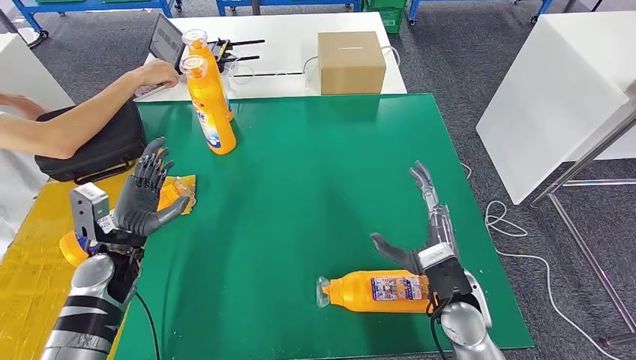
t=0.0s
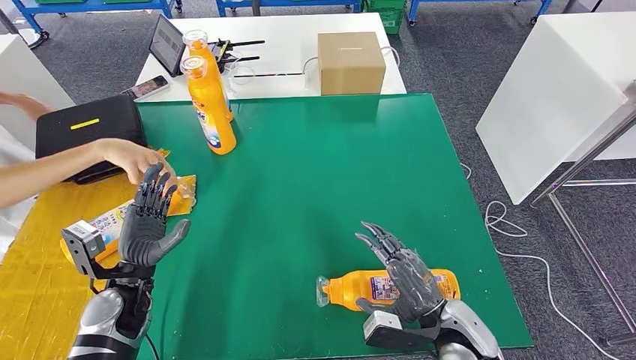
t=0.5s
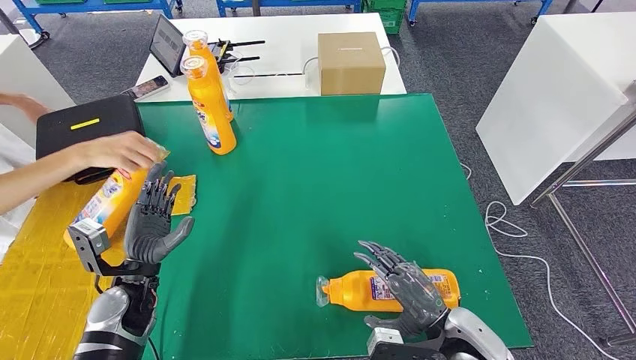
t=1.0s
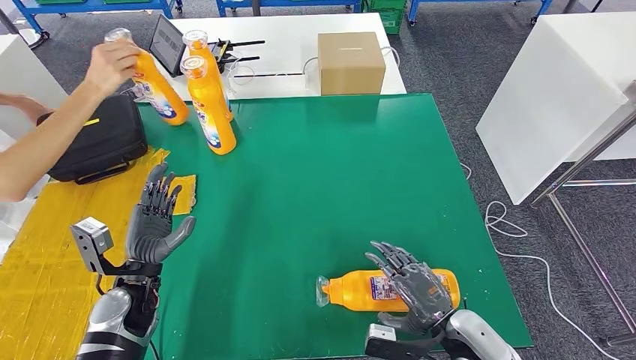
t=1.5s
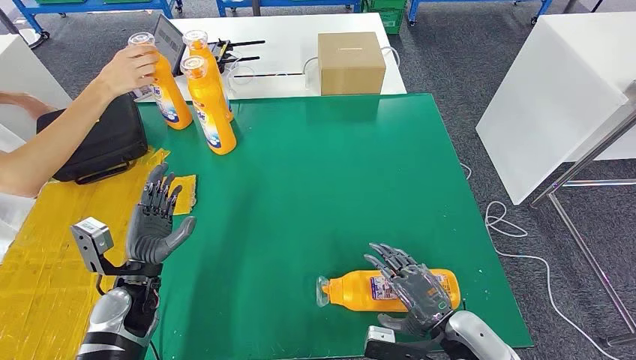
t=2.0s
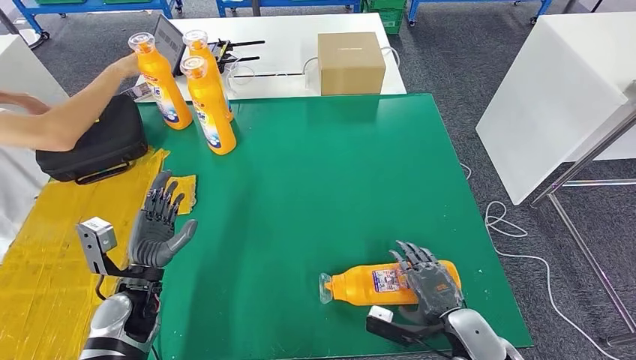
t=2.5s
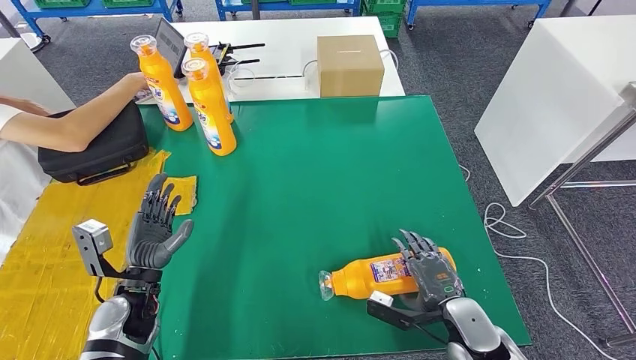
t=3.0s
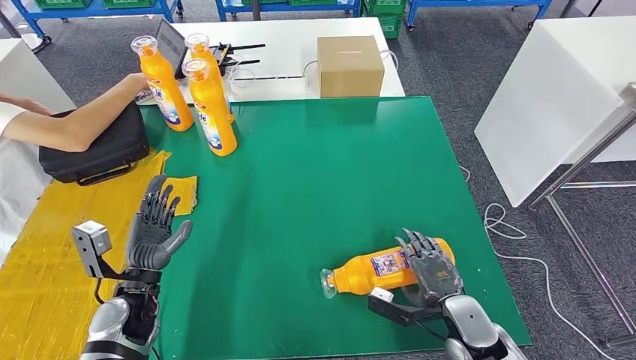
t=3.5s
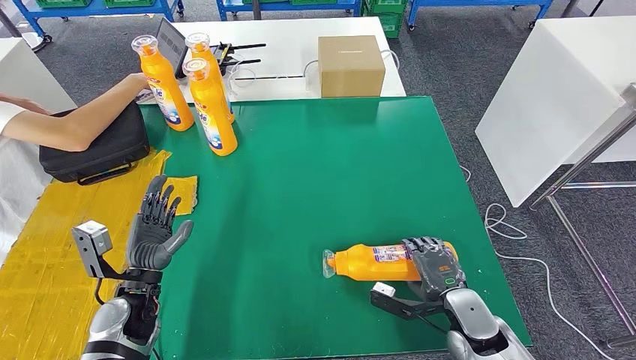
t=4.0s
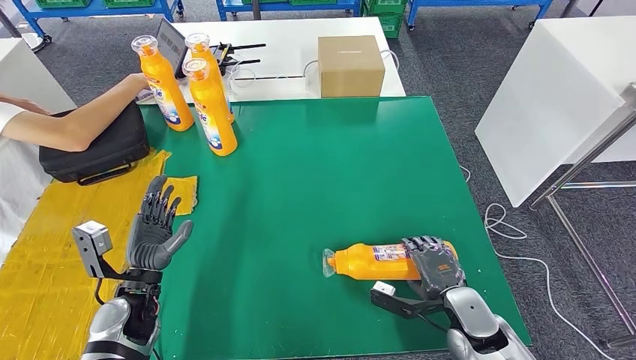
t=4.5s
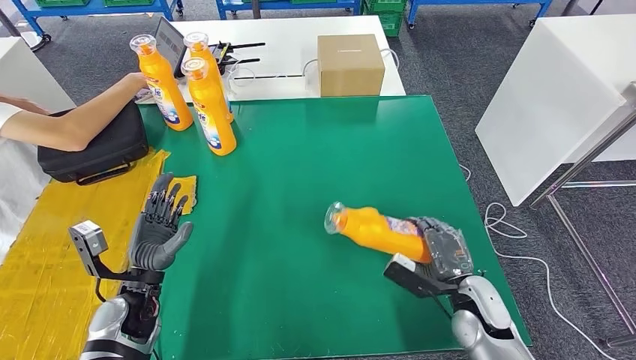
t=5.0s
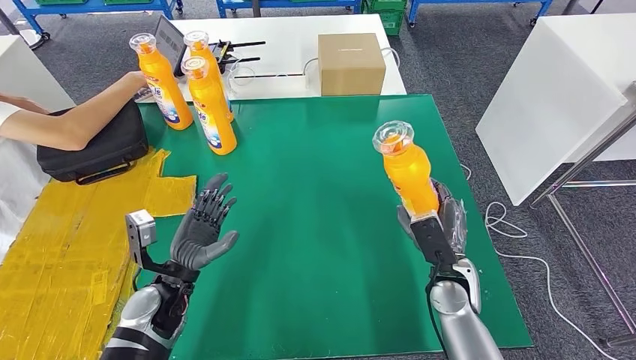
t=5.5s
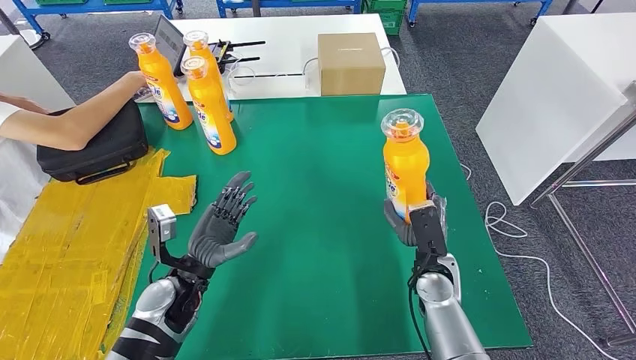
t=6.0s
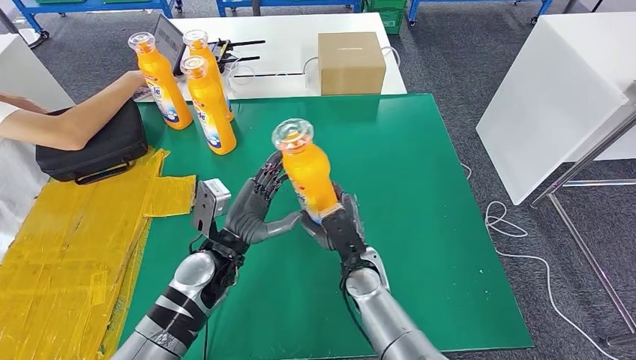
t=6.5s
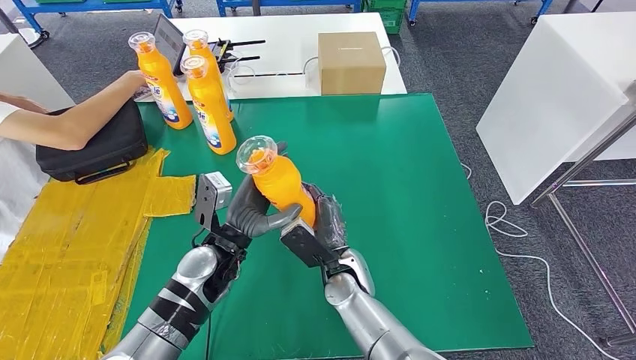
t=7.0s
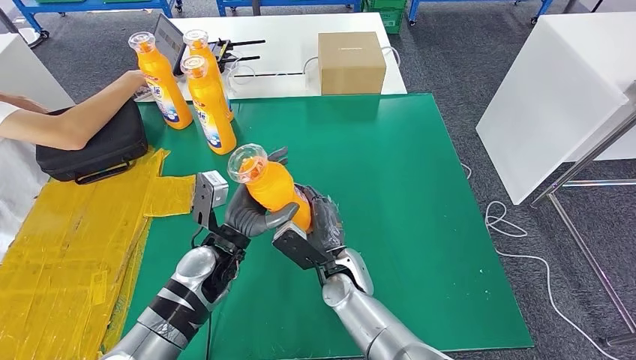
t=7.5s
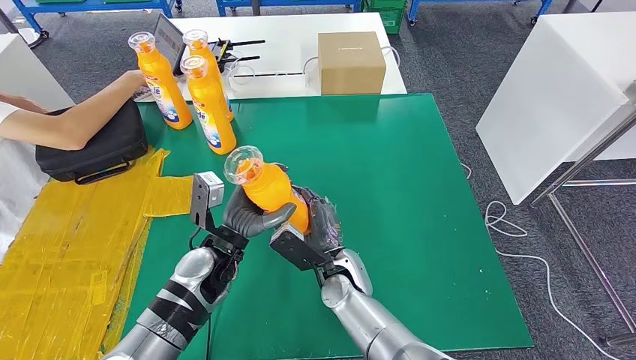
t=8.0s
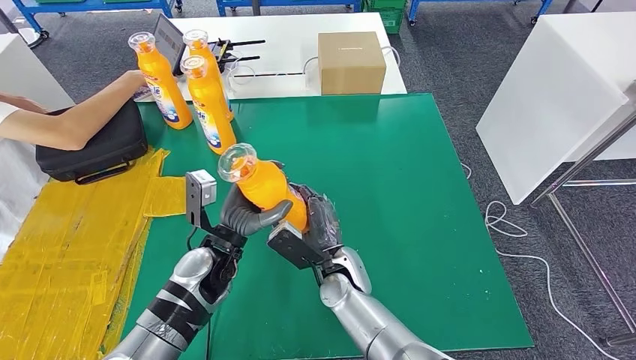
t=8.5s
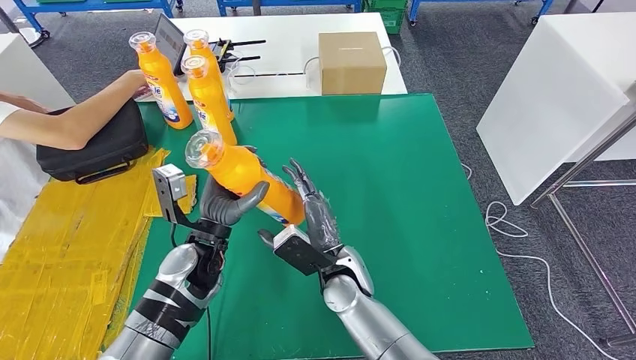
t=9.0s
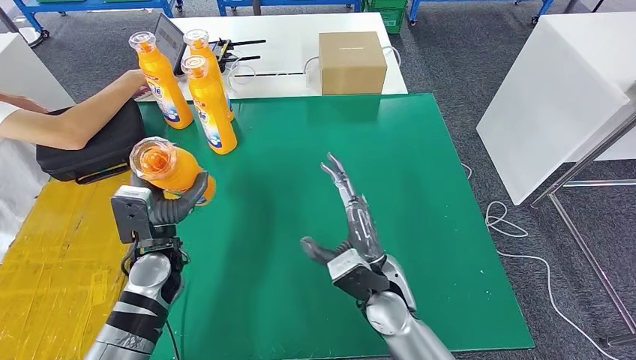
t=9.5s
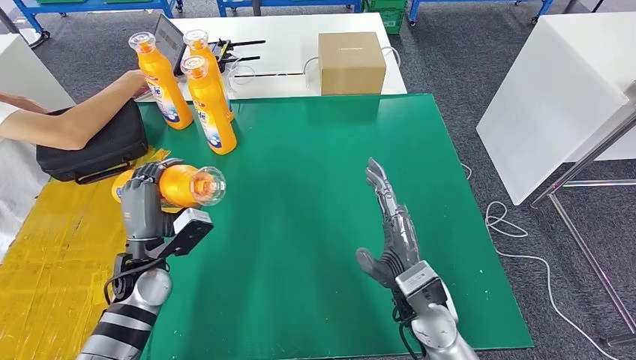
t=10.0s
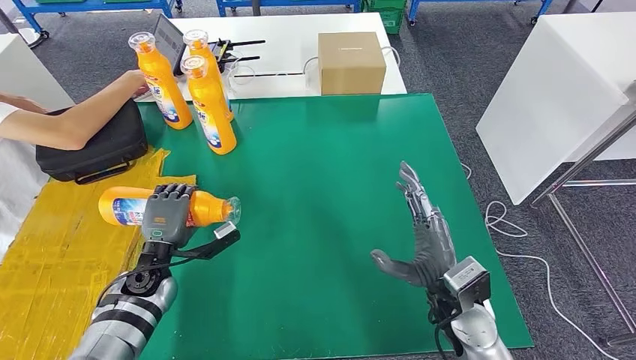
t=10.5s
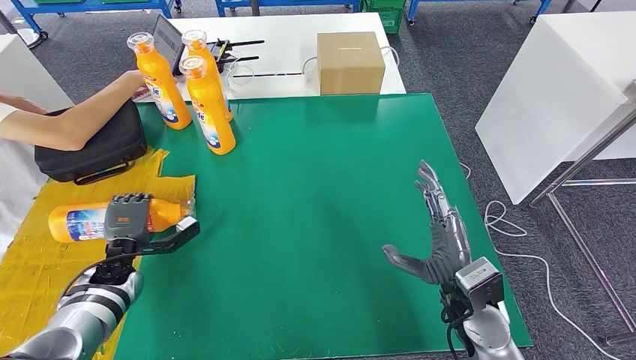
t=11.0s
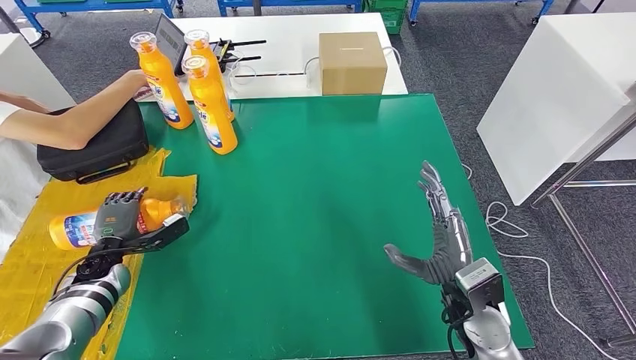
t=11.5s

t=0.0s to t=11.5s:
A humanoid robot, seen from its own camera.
Step, t=0.0s to t=6.0s: Pick up the fast-moving consumer goods bottle from the table.
Step, t=7.0s to t=11.5s: Flip the fast-moving consumer goods bottle to the front side.
t=0.0s to t=2.0s: The right hand travels backward by about 5 cm. Meanwhile the left hand changes place by some 5 cm.
t=2.0s to t=4.0s: The right hand ends up approximately 5 cm from where it was.
t=6.0s to t=7.5s: The right hand moves to the left, some 15 cm; the left hand heads to the right, covering about 5 cm.
t=7.5s to t=9.5s: The left hand shifts some 10 cm to the left. Meanwhile the right hand travels upward and to the right by some 10 cm.
t=9.5s to t=11.5s: The right hand moves to the right, approximately 15 cm. The left hand goes about 20 cm to the left and downward.

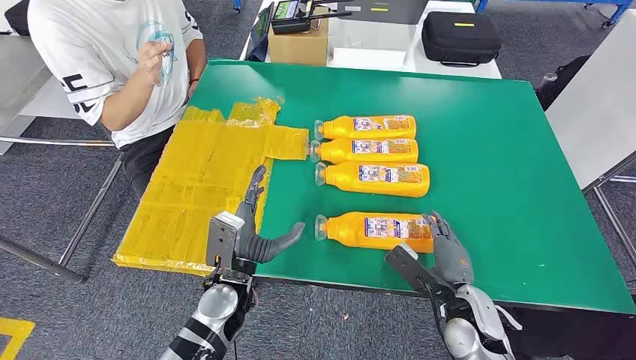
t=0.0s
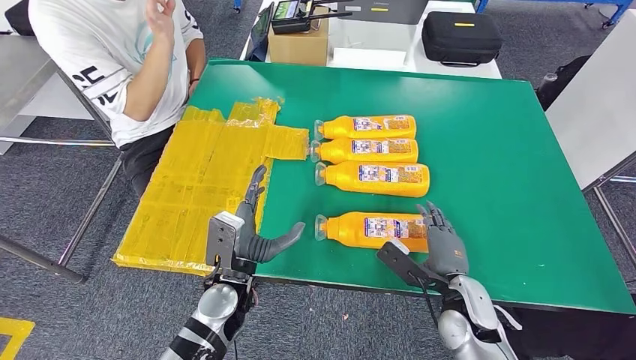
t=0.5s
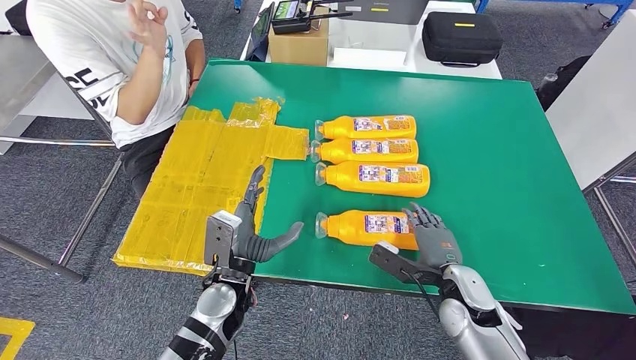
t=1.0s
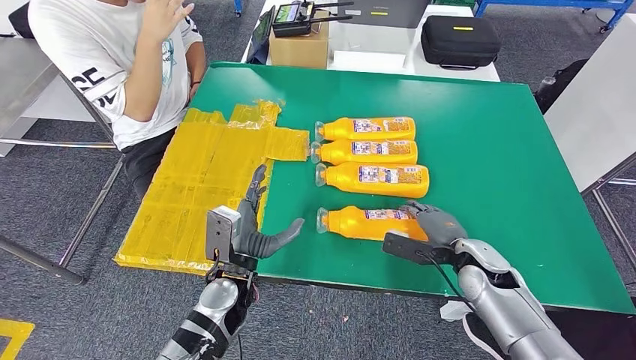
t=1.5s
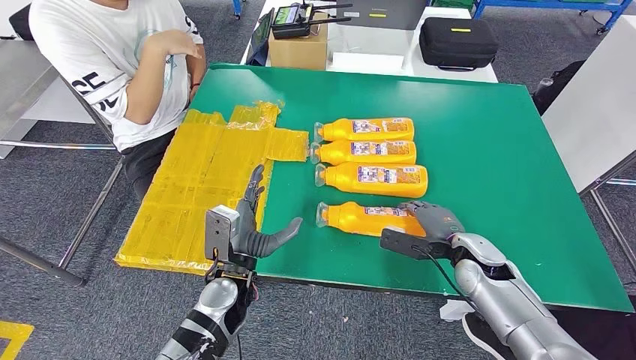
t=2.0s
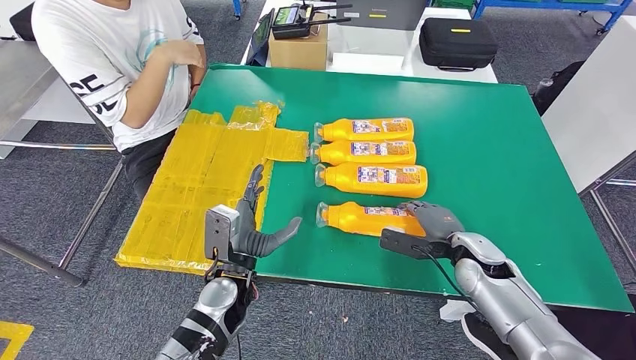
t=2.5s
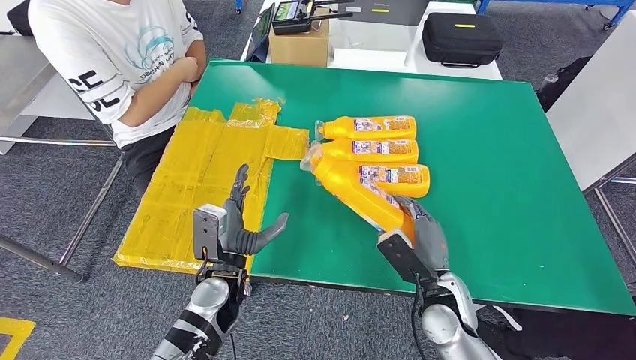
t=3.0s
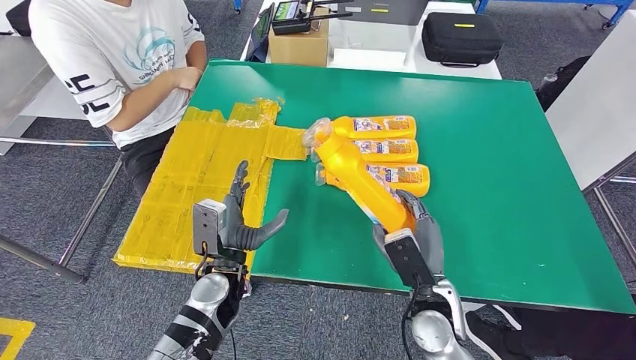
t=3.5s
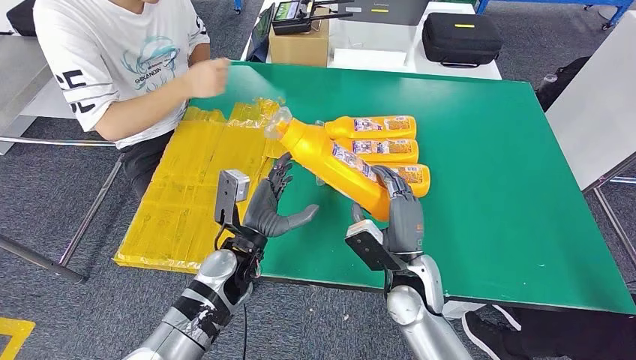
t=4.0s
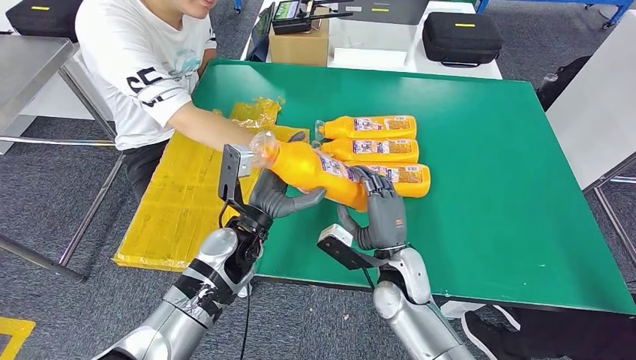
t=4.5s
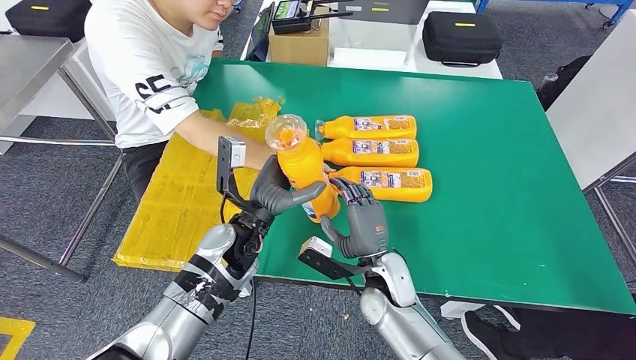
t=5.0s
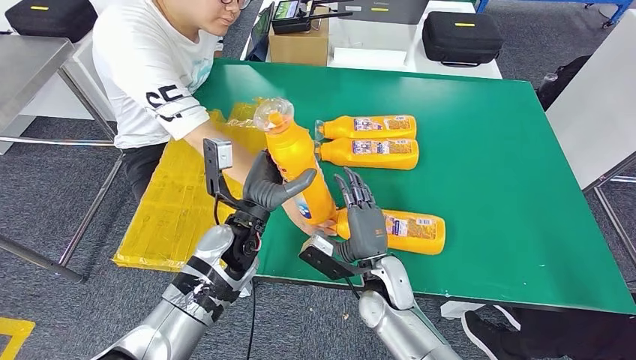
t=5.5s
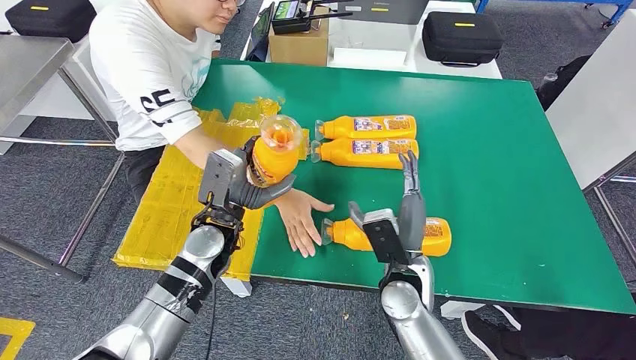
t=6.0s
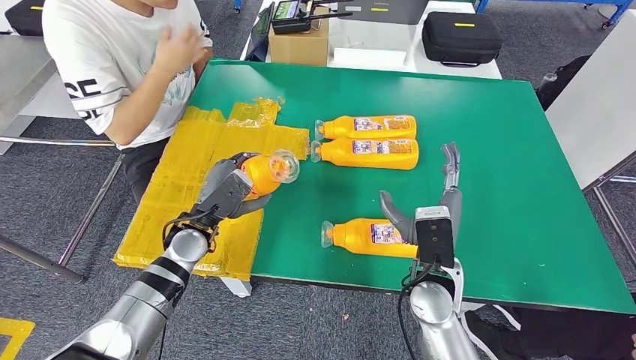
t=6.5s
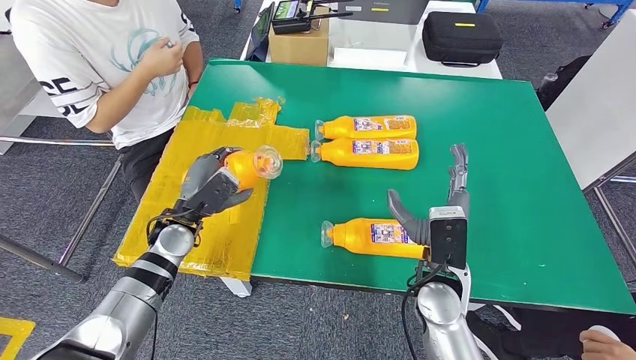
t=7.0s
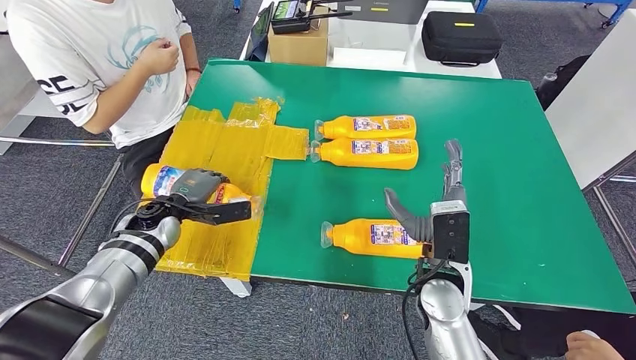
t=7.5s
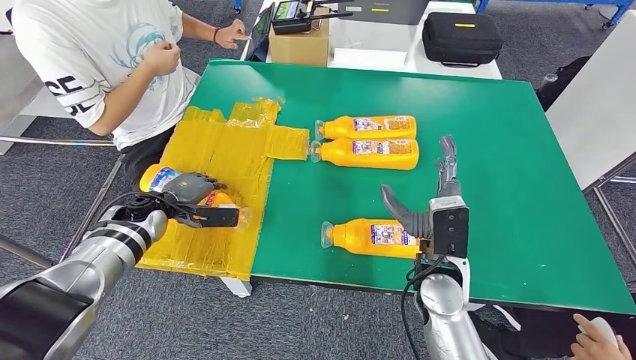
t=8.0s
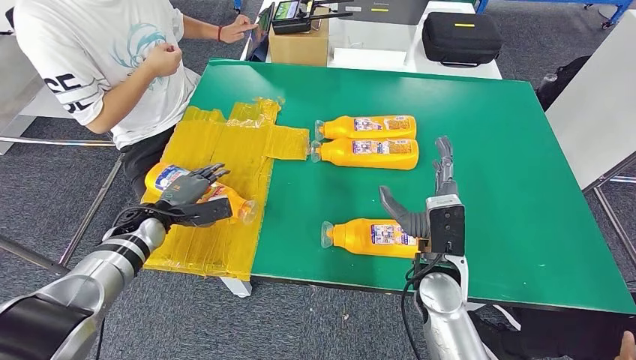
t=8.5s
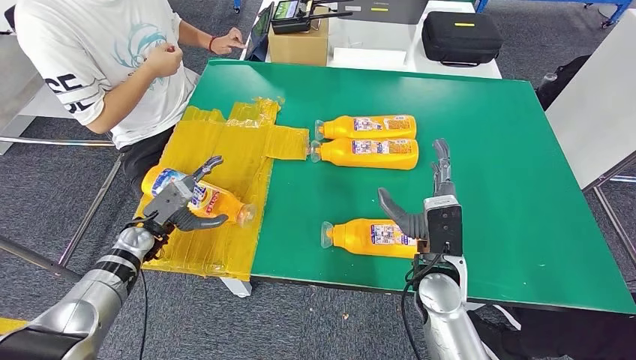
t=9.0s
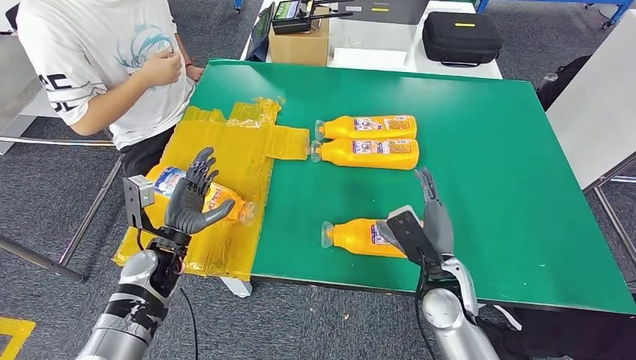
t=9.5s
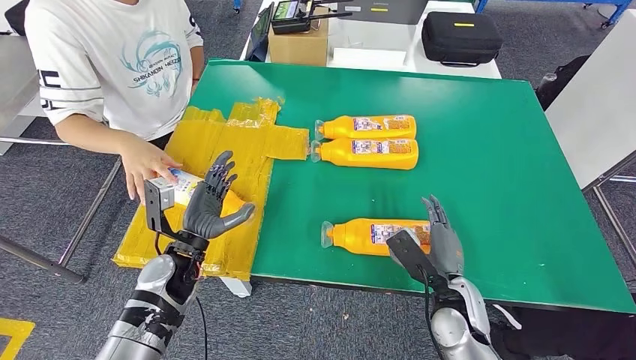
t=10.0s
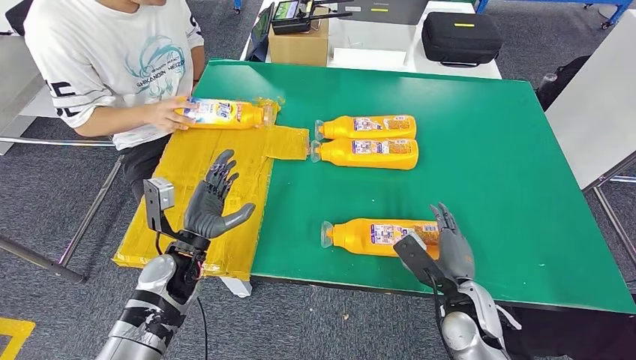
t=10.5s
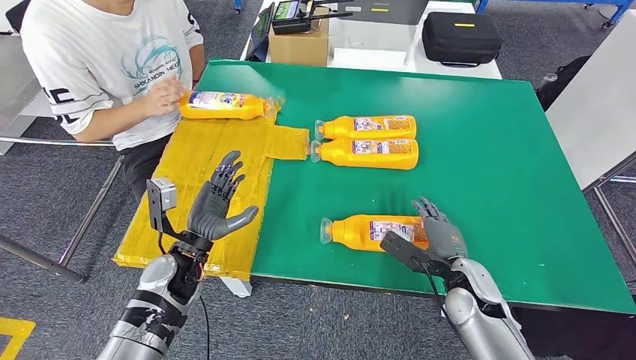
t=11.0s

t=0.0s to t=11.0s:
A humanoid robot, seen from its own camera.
Step, t=0.0s to t=4.0s: Take the fast-moving consumer goods bottle from the table.
Step, t=5.0s to t=10.0s: Flip the fast-moving consumer goods bottle to the front side.
t=7.5s to t=9.0s: The left hand shifts by approximately 5 cm.
